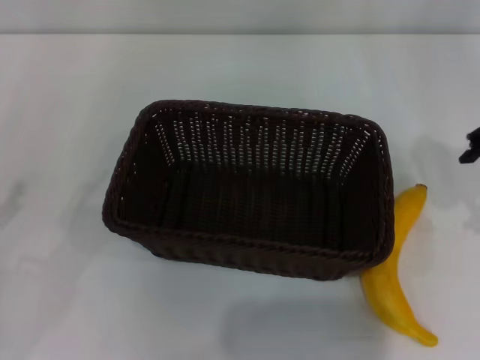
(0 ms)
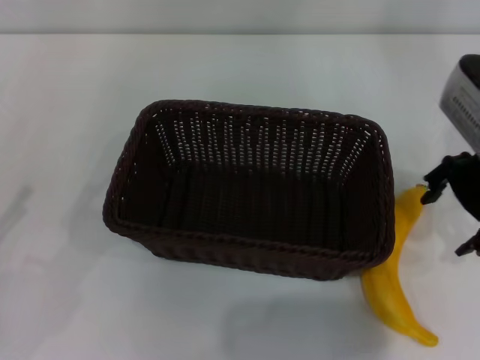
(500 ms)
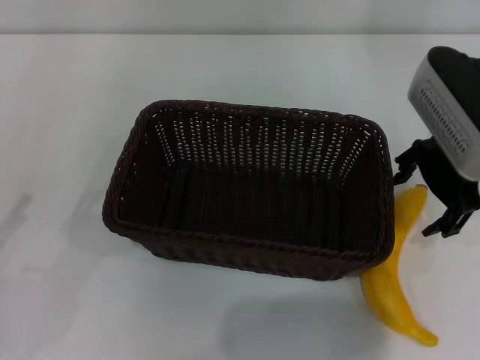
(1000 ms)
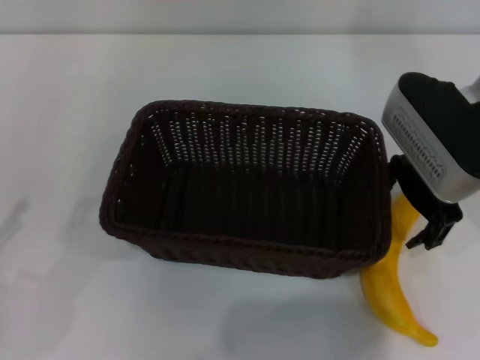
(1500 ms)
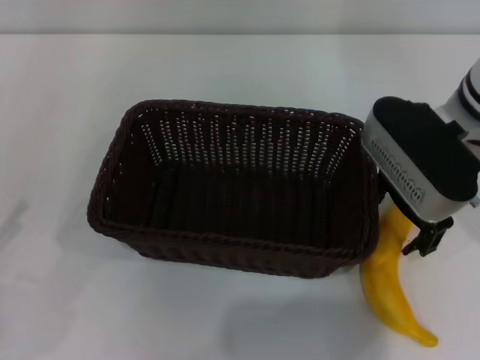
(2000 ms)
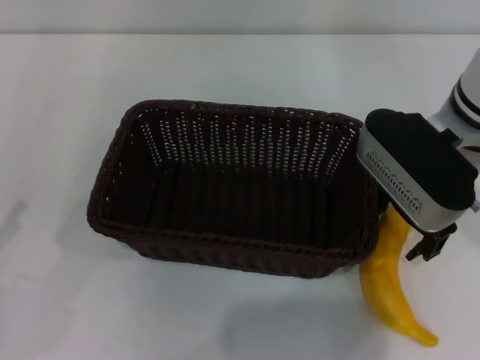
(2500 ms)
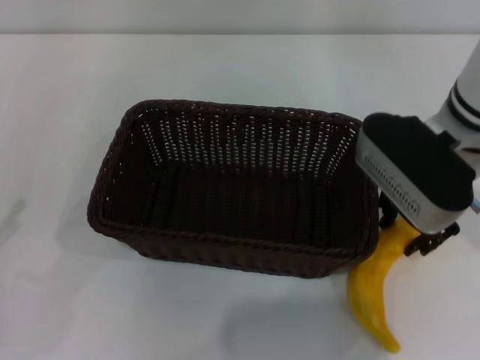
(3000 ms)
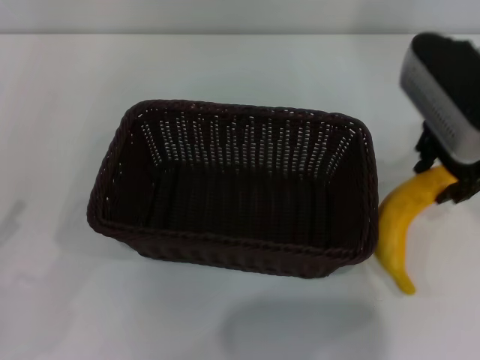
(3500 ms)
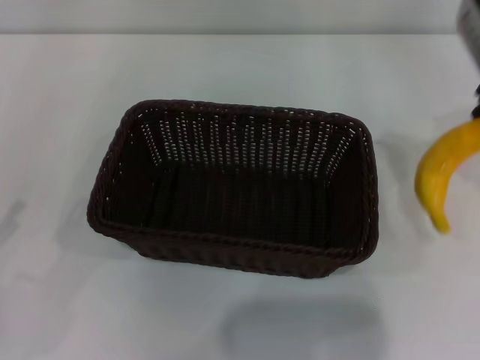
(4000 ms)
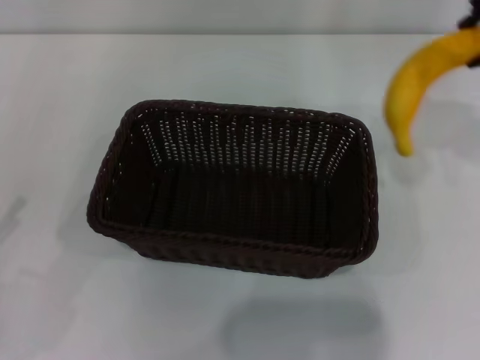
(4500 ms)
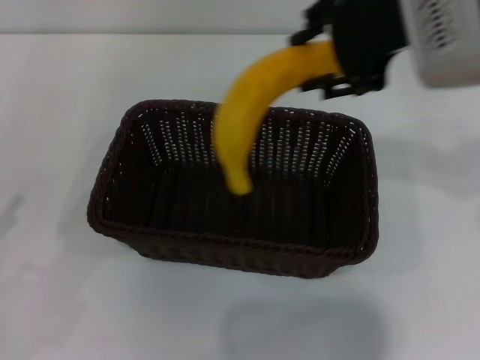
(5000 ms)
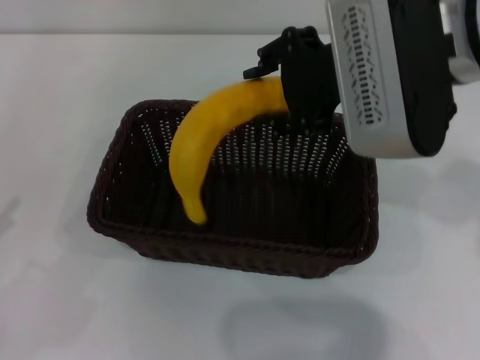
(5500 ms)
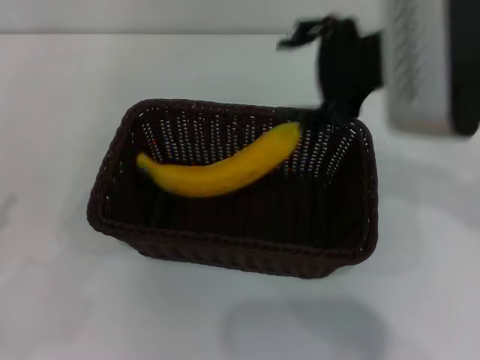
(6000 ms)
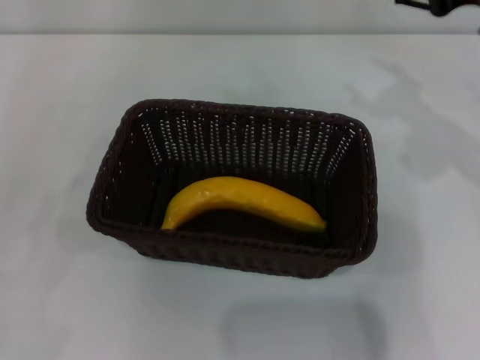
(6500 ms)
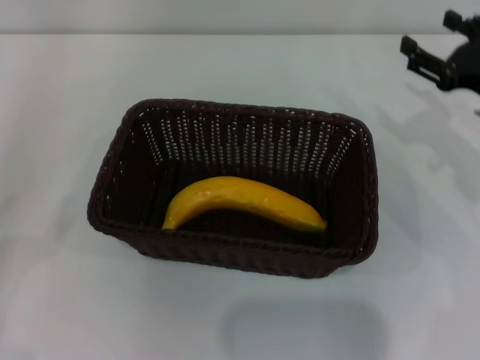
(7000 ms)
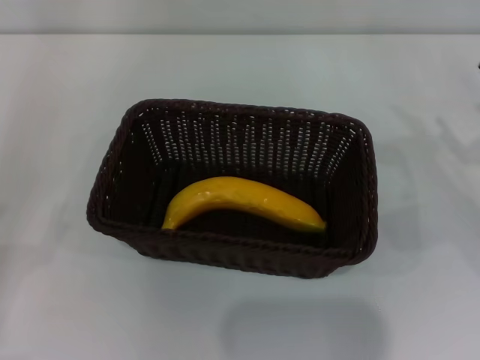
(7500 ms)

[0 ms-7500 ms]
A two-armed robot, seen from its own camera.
Step, 0 ms to 4000 ms: Pick up the banana with the right gripper.
Step, 4500 ms to 5500 ms: Place the banana into the dark basket with the right gripper.
0 ms to 2000 ms: The right gripper heads to the left, covering about 10 cm.
2000 ms to 4000 ms: The right gripper moves upward and to the right, about 10 cm, and closes its fingers.
4000 ms to 5500 ms: The right gripper moves to the left and backward, approximately 15 cm.
5500 ms to 7500 ms: The left gripper heads downward, covering some 5 cm, while the right gripper goes approximately 30 cm to the right and downward, and opens.

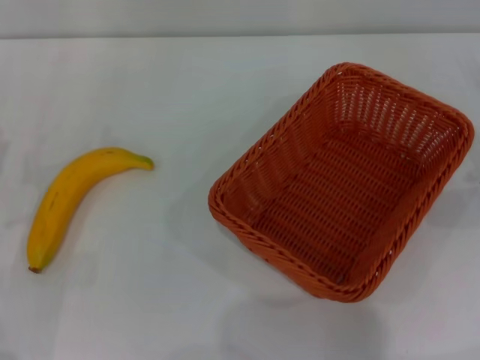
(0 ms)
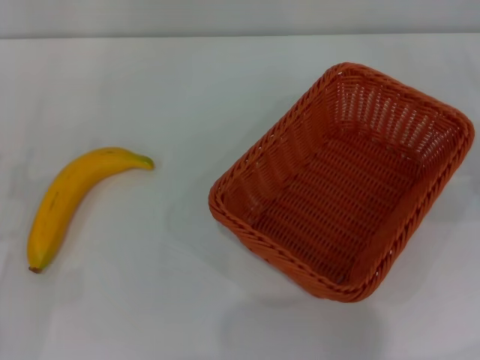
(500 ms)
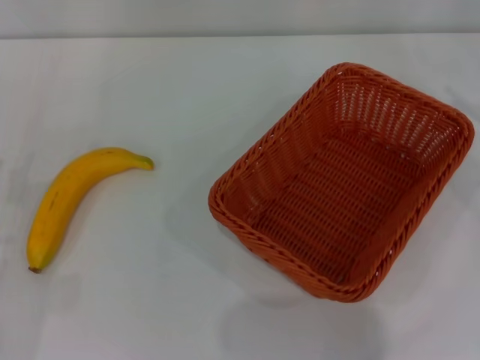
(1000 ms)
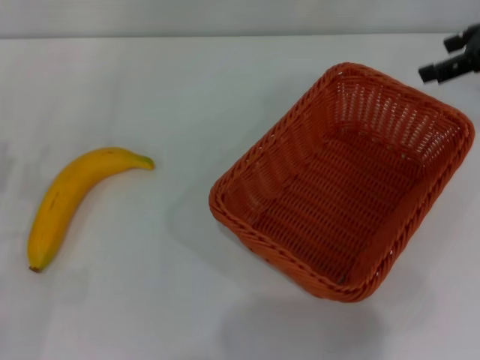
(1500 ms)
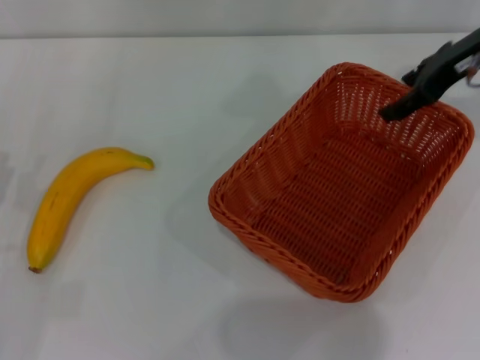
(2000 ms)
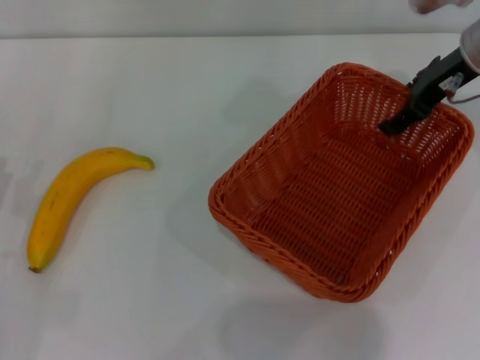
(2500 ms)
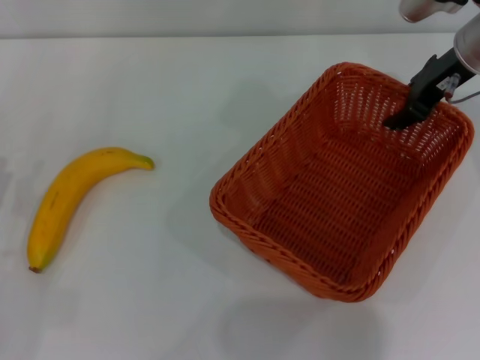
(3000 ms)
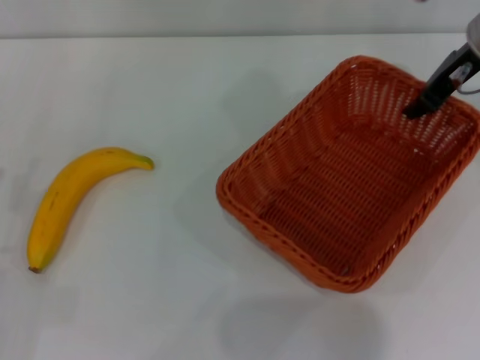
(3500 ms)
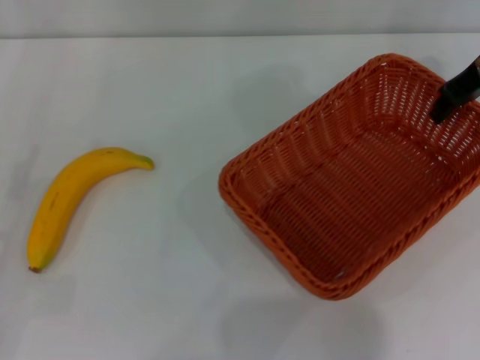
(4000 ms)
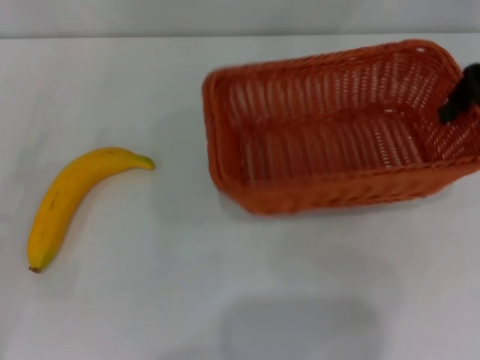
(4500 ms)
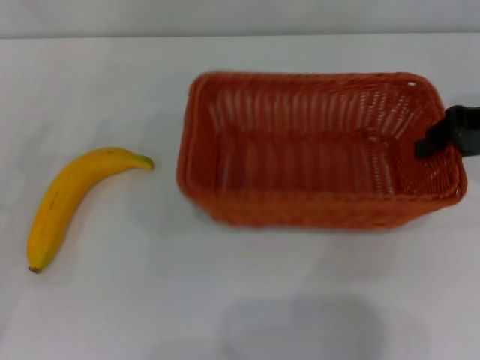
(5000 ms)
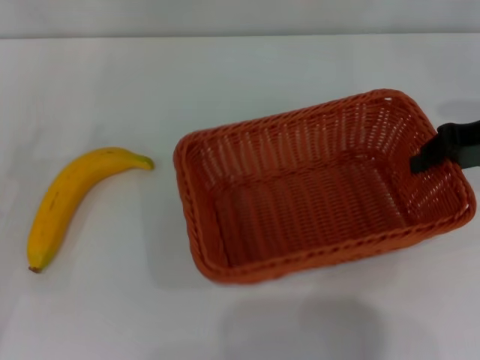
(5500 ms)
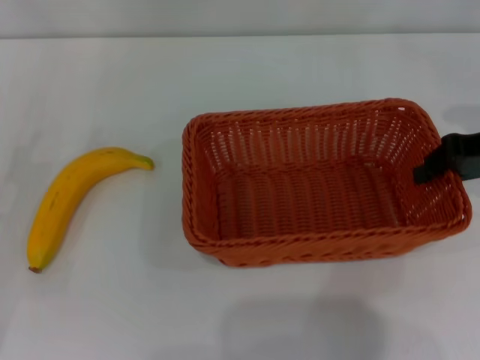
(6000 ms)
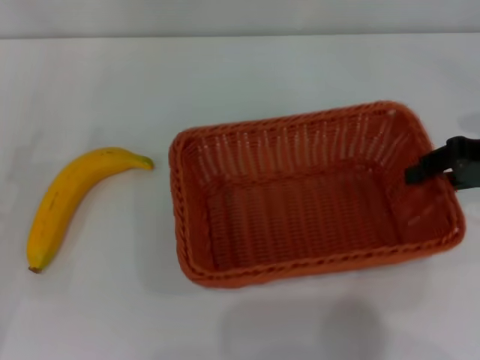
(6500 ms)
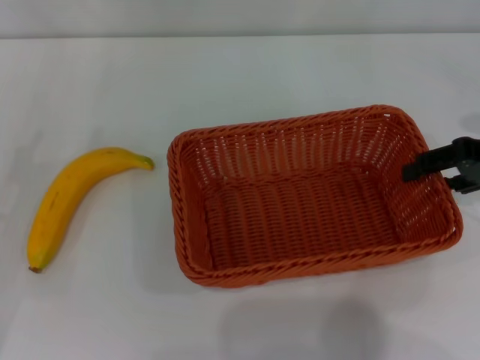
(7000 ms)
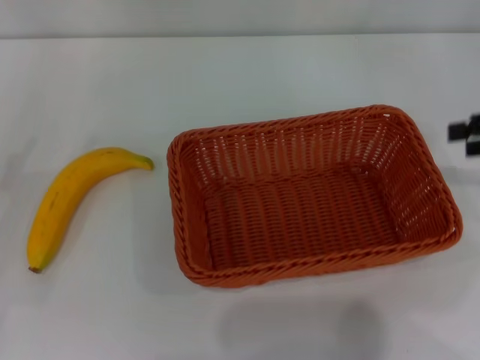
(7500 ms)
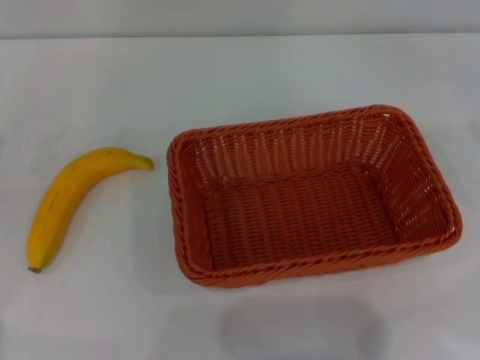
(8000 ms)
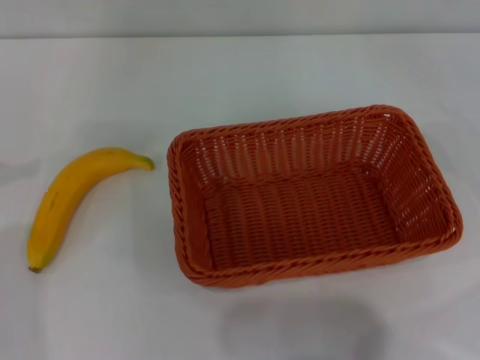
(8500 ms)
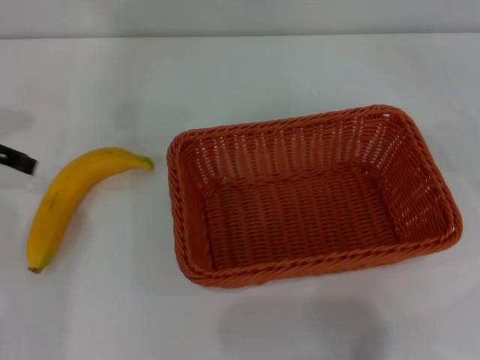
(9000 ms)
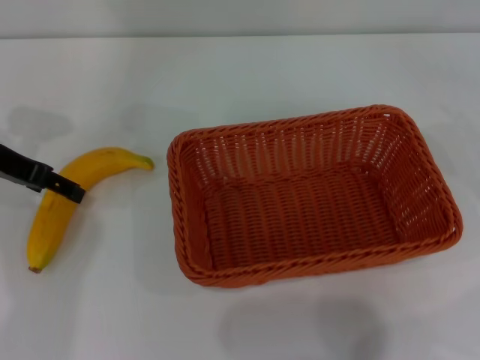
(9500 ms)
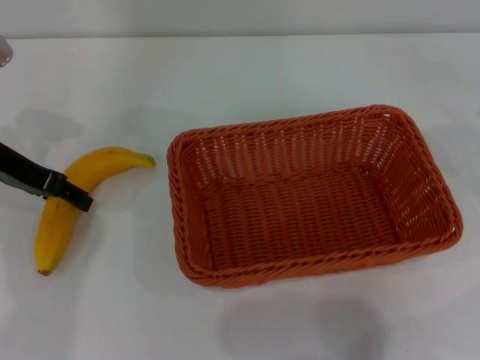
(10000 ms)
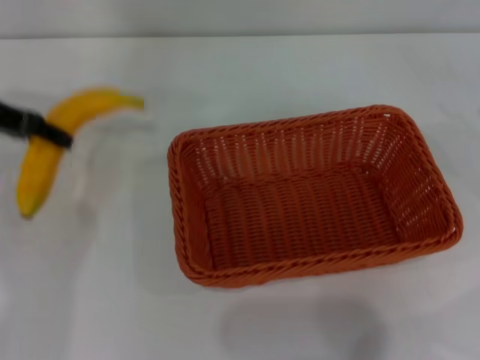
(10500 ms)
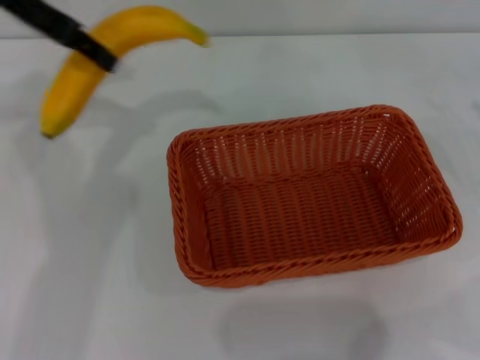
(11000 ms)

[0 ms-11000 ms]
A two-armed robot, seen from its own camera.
Step, 0 ms to 3500 ms: Pick up the light basket with the right gripper.
Step, 4000 ms to 7000 ms: Place the light basket in the center of view with the right gripper.
Step, 7500 ms to 10000 ms: Pick up the banana with the left gripper.
0 ms to 2000 ms: The right gripper heads upward, to the left and forward, covering about 25 cm.
2000 ms to 3500 ms: The right gripper closes.
3500 ms to 5500 ms: The left gripper shifts about 10 cm to the left and upward; the right gripper goes some 10 cm backward and to the right.
5500 ms to 7500 ms: The right gripper travels to the right by roughly 5 cm, and opens up.
9000 ms to 11000 ms: The left gripper shifts roughly 15 cm to the right, upward and forward, and closes.

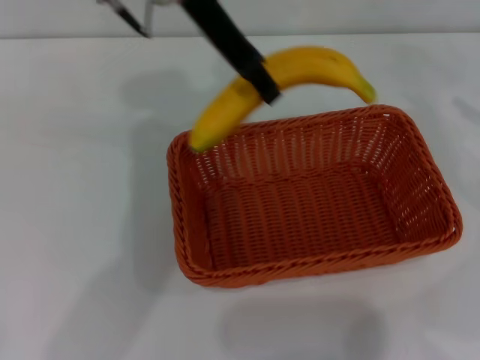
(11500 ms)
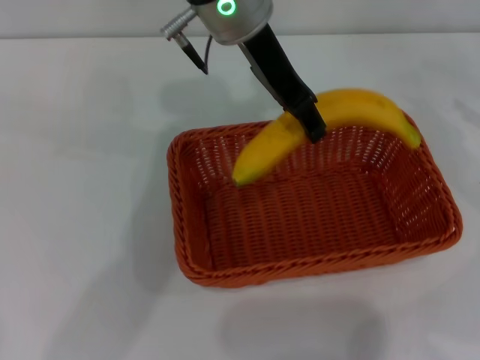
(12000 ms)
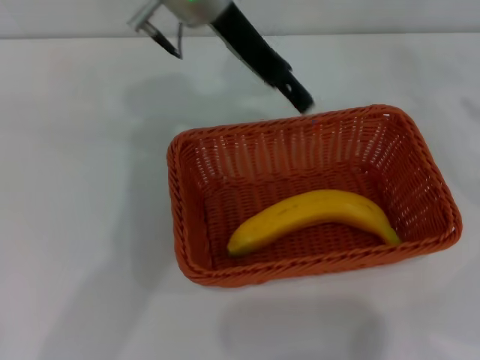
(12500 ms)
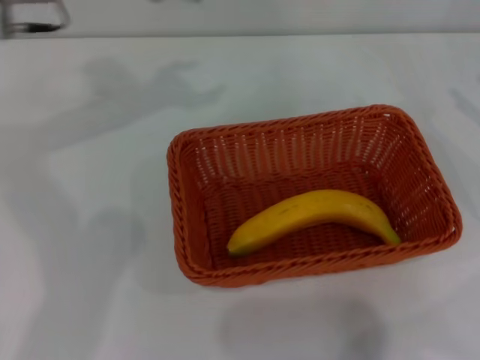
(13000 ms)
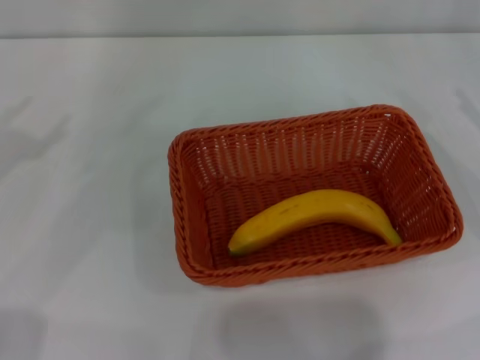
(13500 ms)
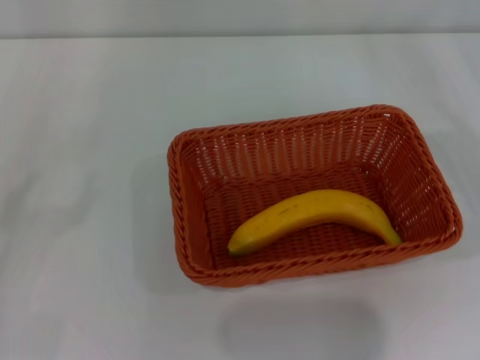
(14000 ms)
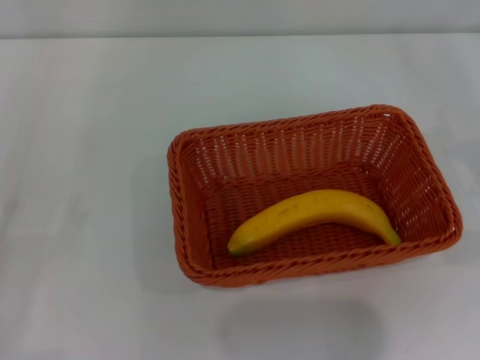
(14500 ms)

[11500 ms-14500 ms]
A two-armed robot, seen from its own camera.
11500 ms to 13000 ms: The left gripper heads to the left, covering roughly 15 cm, and opens its fingers.
13000 ms to 14500 ms: The left gripper moves backward, downward and to the left, approximately 35 cm.
